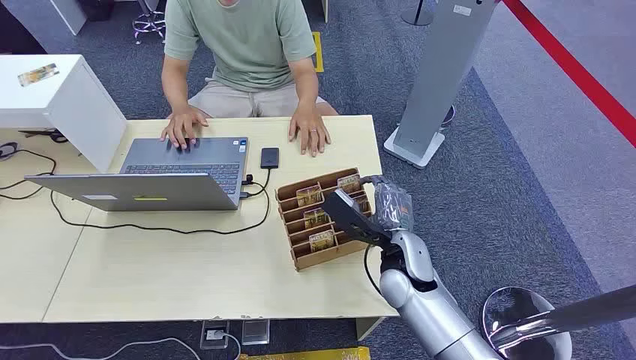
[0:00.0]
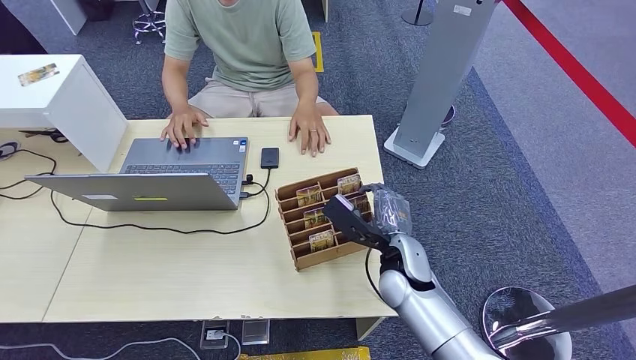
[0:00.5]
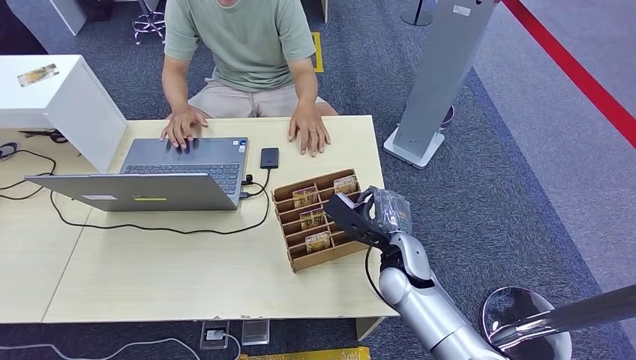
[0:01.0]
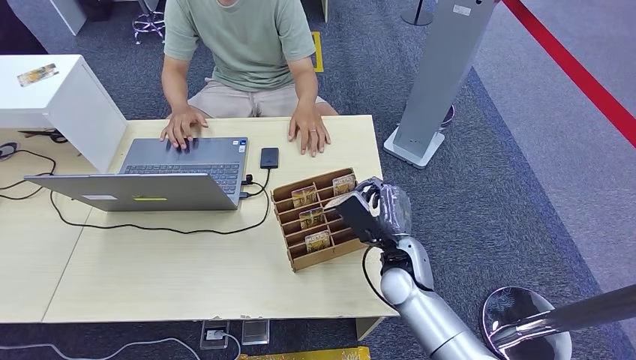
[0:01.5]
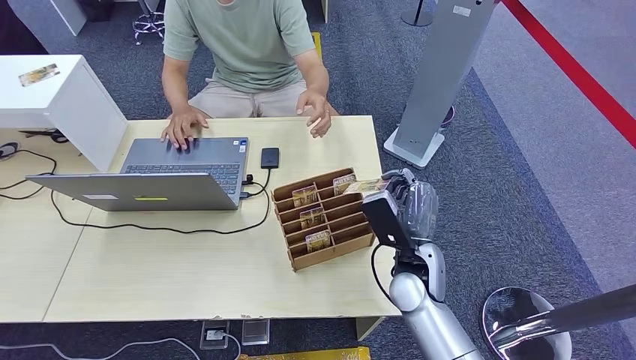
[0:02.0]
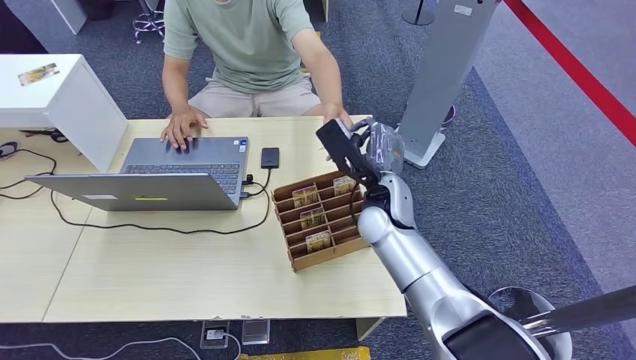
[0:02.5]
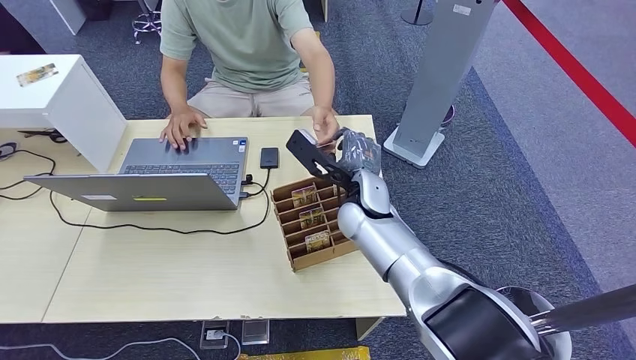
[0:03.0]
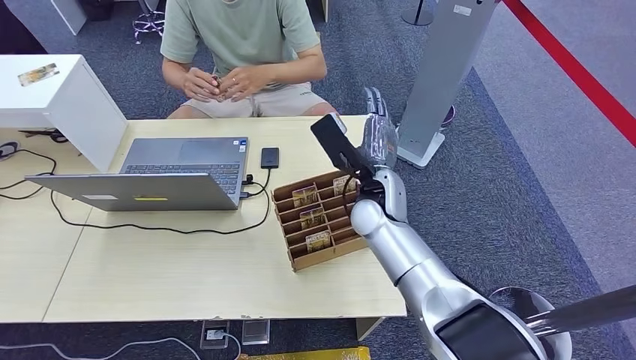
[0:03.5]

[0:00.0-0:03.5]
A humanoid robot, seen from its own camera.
Step, 0:00.0 to 0:01.5: Pick up the room card from the card holder.
Step, 0:02.5 to 0:03.5: Hand the room card to the target.
0:02.0 to 0:03.5: The right hand goes roughly 10 cm upward.
